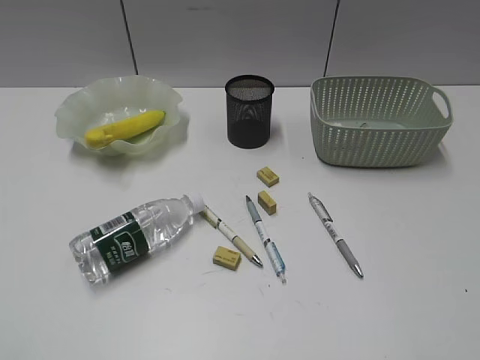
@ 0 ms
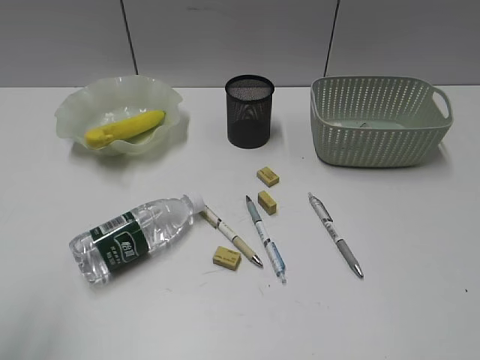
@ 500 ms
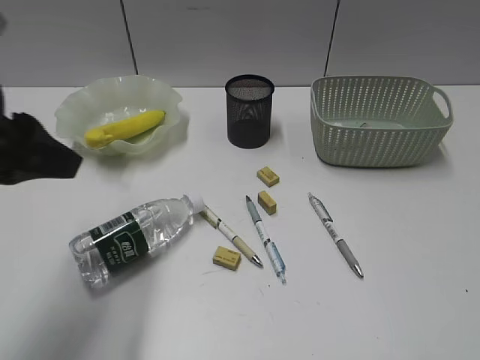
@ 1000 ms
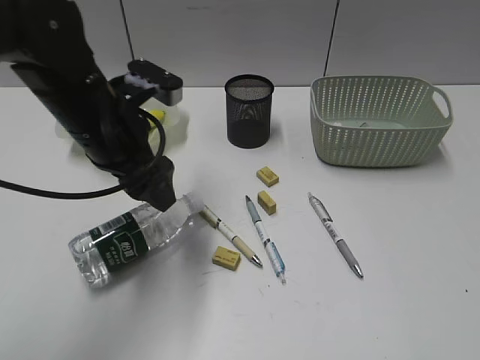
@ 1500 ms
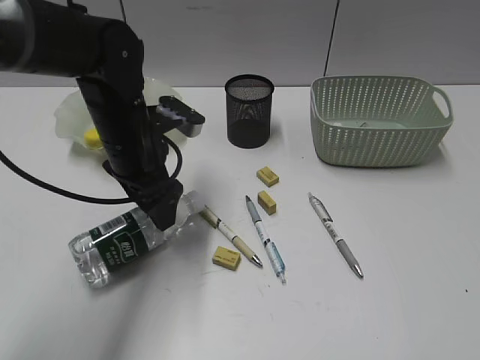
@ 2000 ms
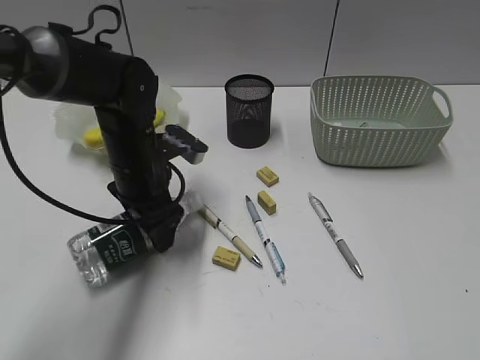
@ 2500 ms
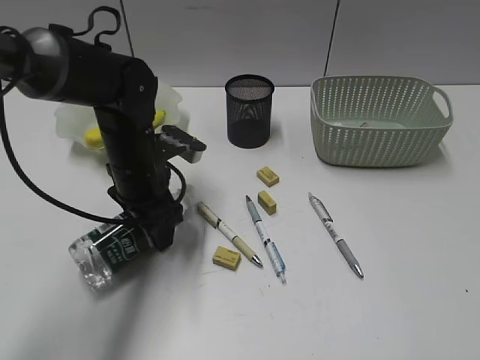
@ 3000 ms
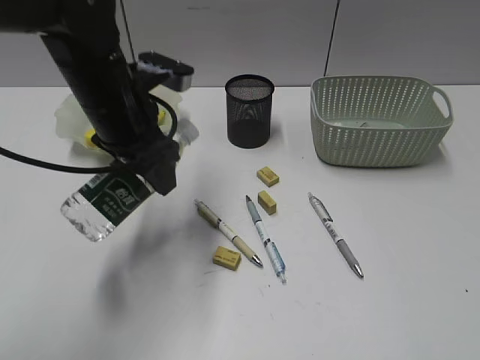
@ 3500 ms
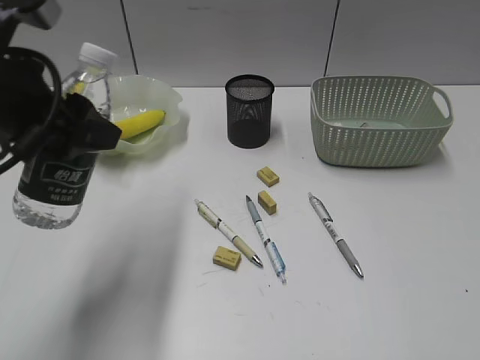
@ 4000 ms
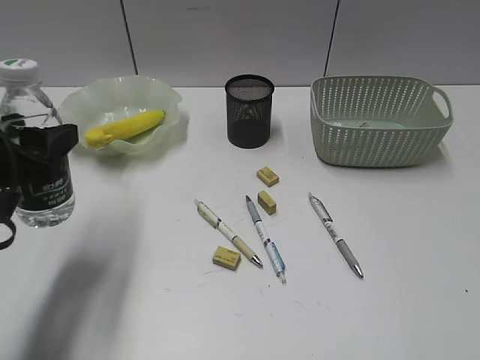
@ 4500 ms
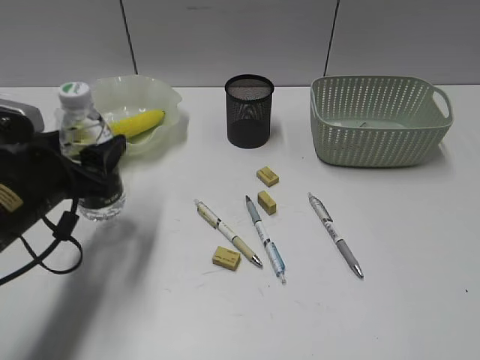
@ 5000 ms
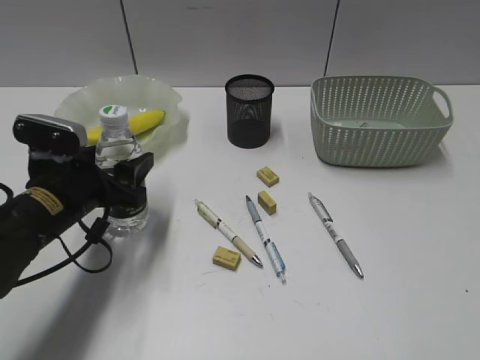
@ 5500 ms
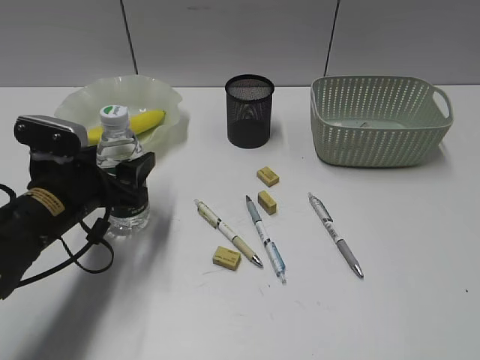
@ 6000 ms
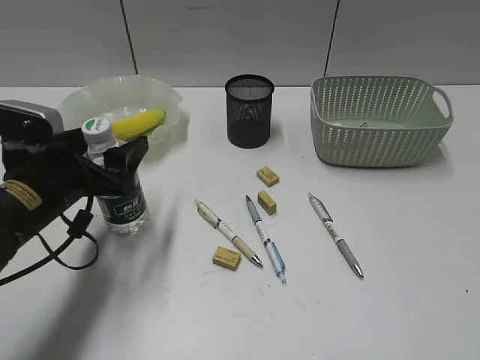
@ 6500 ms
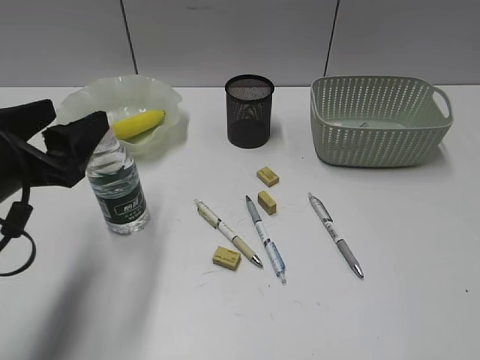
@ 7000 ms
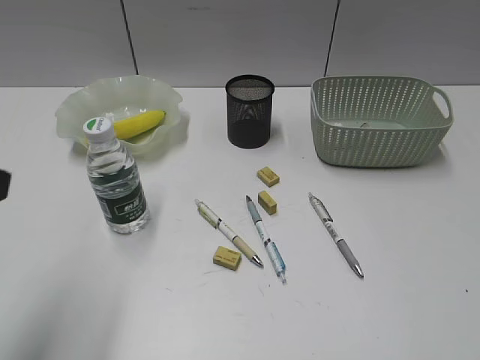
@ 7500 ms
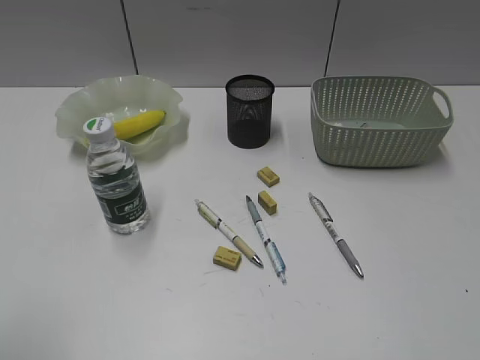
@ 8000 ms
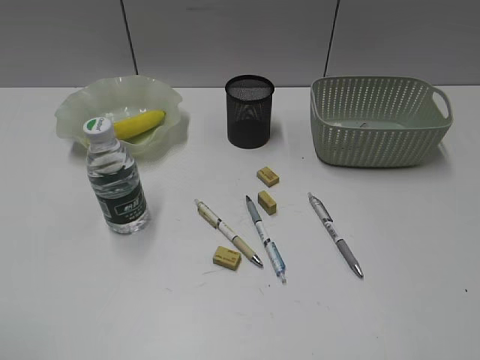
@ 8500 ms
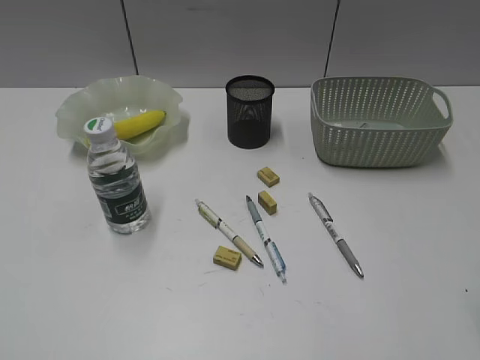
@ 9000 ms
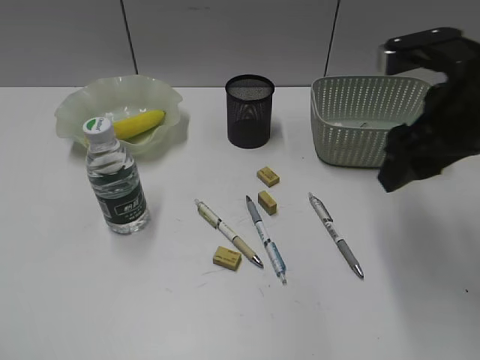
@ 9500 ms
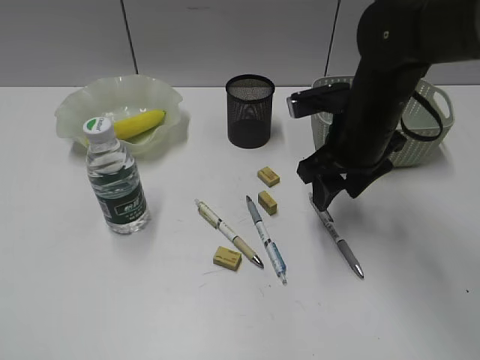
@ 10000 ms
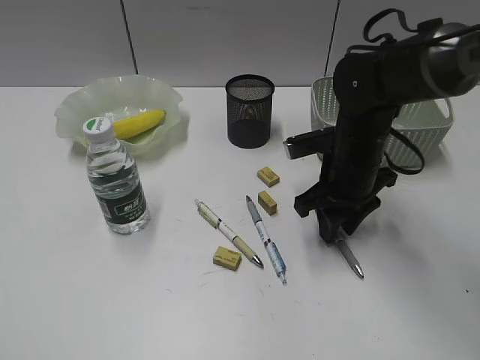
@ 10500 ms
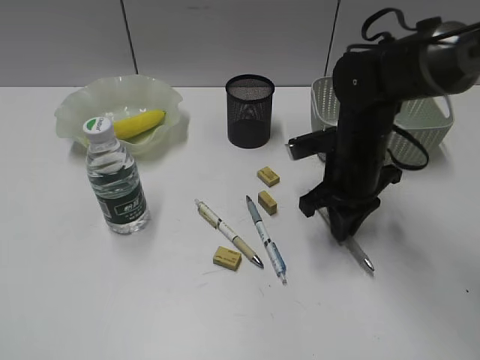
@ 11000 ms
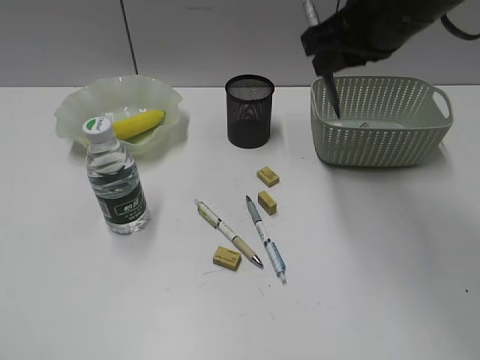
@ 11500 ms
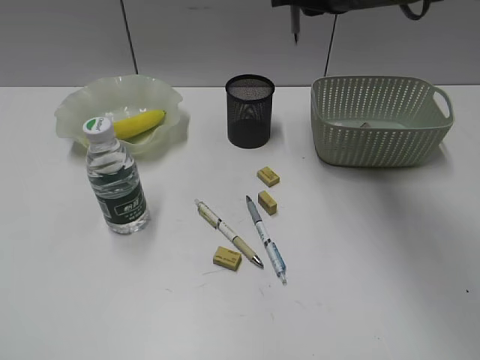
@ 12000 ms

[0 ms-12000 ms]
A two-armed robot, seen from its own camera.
Step, 0 ms to 2500 ms: Grasp the bottle with left gripper.
Step, 3000 ms to 6500 ms: Stand the bottle with left gripper.
Step, 7000 ms to 10500 ms: Grasp the gray pen with right gripper.
0 ms to 2000 ms: The left gripper moves forward and to the right, some 40 cm, and opens up.
2000 ms to 4000 ms: The left gripper is displaced upward, backward and to the left by some 15 cm.
4000 ms to 6000 ms: The left gripper heads downward, covering about 15 cm.
6000 ms to 8000 ms: The left gripper goes approximately 30 cm backward, upward and to the left.
8000 ms to 10000 ms: The left gripper shifts approximately 5 cm backward. Meanwhile the right gripper travels forward and to the left by about 40 cm.
10000 ms to 12000 ms: The right gripper moves upward, roughly 15 cm, and closes up.

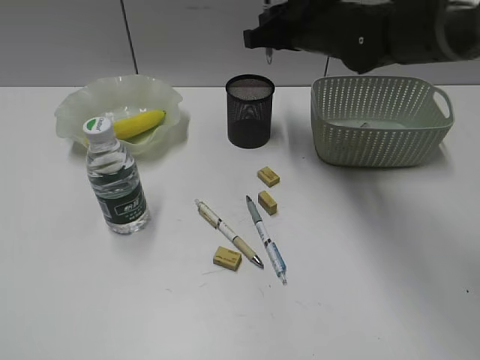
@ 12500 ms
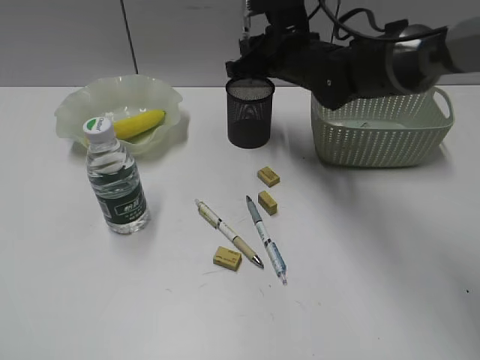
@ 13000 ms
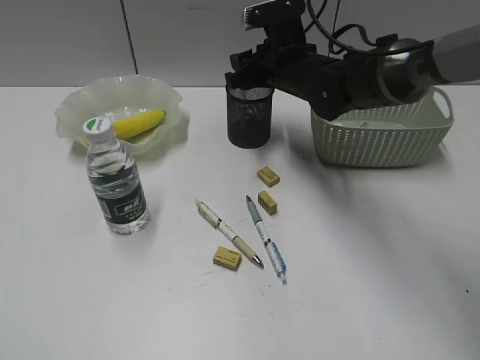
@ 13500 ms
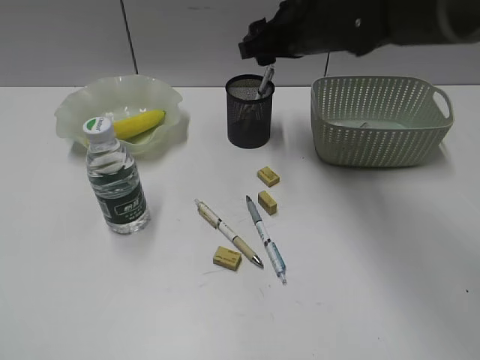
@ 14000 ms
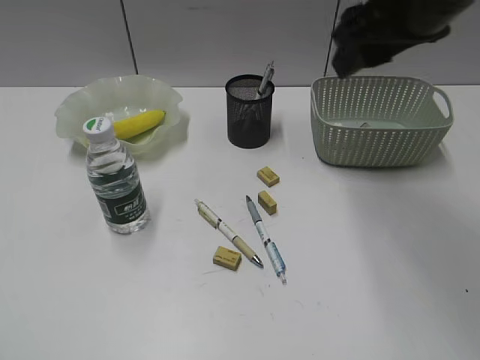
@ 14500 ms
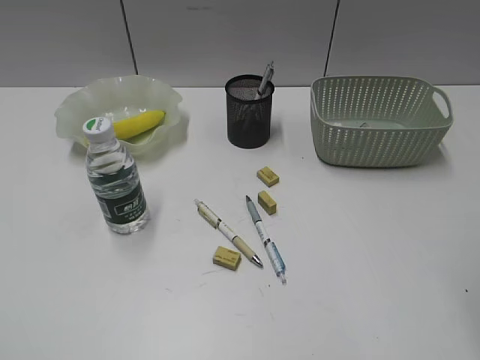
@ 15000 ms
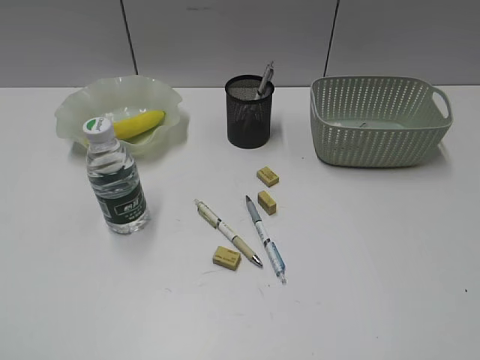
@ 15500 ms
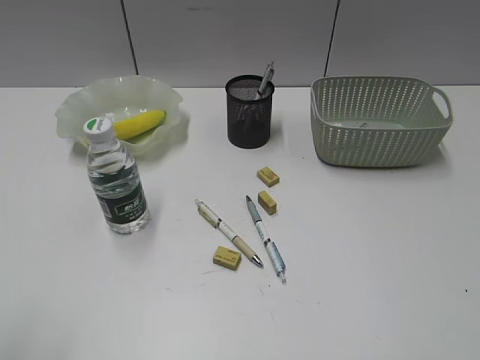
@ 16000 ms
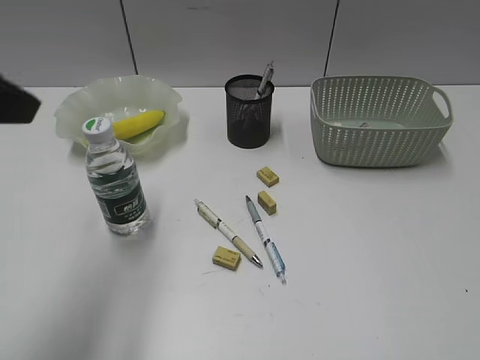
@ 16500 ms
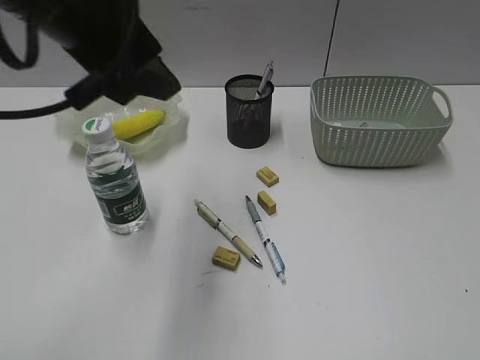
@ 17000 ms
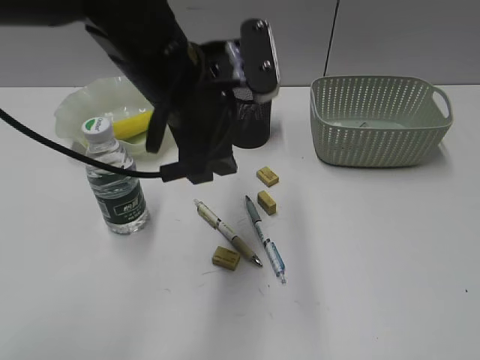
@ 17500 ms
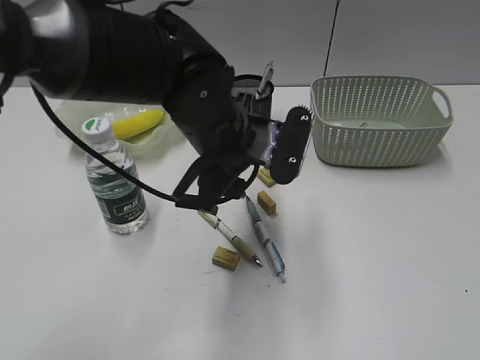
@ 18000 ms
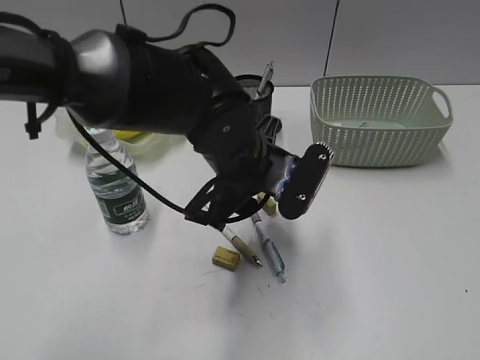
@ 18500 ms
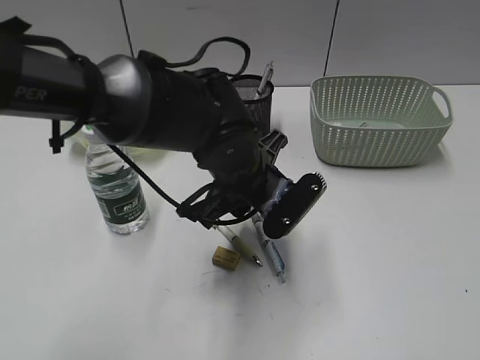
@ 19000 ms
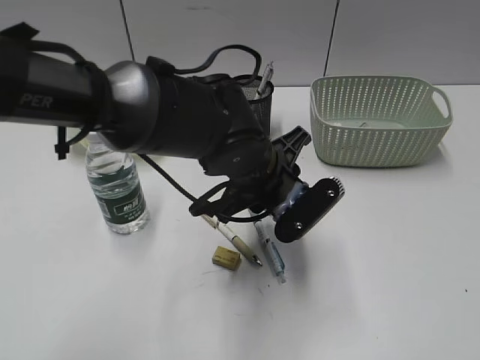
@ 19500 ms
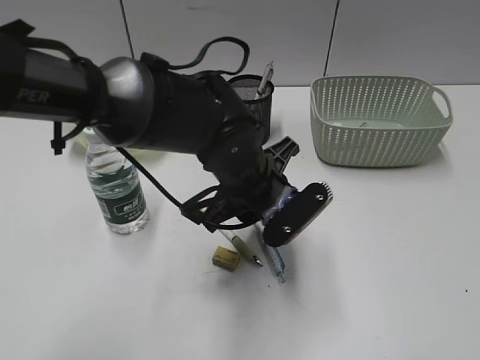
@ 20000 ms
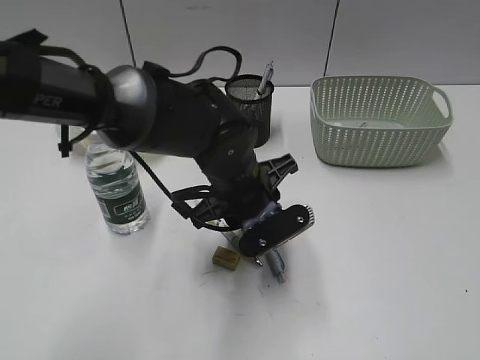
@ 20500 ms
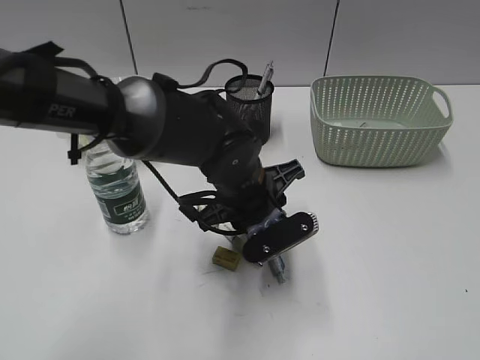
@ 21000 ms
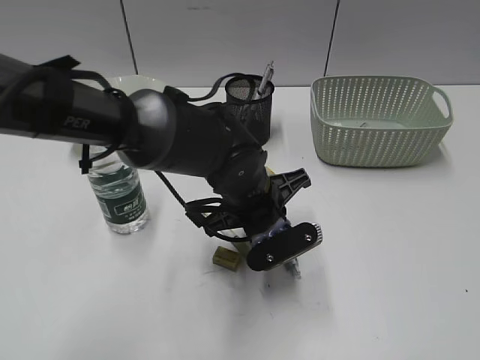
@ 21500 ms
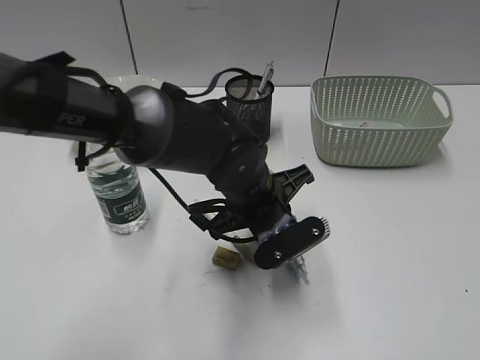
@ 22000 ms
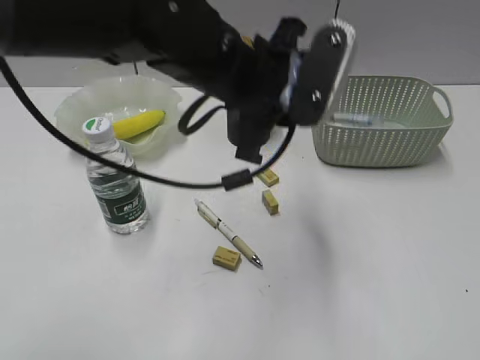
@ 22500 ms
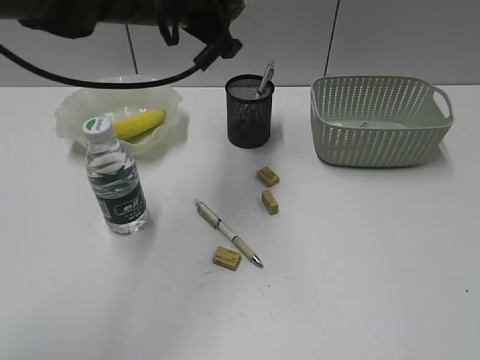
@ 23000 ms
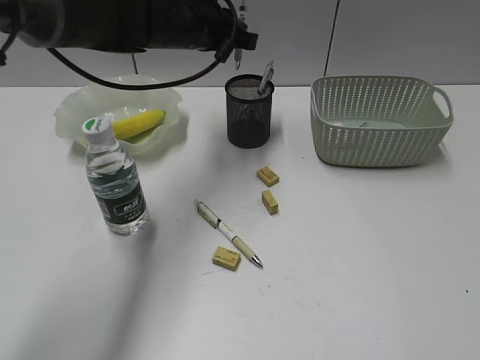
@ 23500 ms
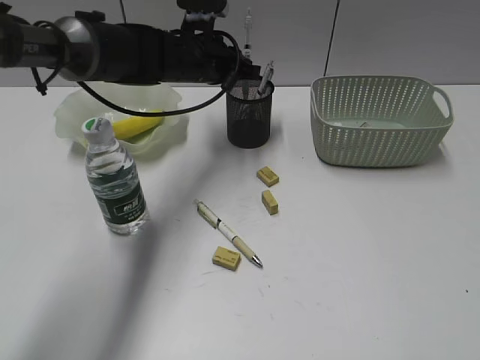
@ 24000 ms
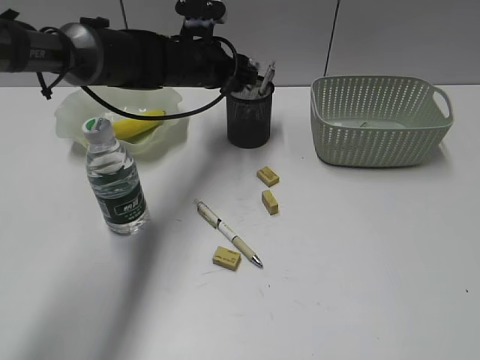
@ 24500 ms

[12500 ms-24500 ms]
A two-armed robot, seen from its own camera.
Step, 14000 ms to 21500 ms: Grasp the blue pen with left gripper.
12500 ms to 14500 ms: The right gripper shifts some 15 cm backward and upward, and opens its fingers.
14500 ms to 16500 ms: The left gripper is displaced forward and to the right by approximately 20 cm. The right gripper moves backward and to the right, about 35 cm.
16500 ms to 18500 ms: The left gripper goes roughly 30 cm to the right, downward and forward.
20500 ms to 22500 ms: The left gripper goes approximately 10 cm upward, and closes.
22500 ms to 24500 ms: The left gripper moves forward and downward, about 20 cm, and opens up.

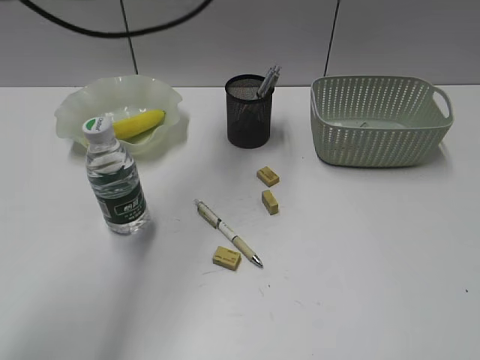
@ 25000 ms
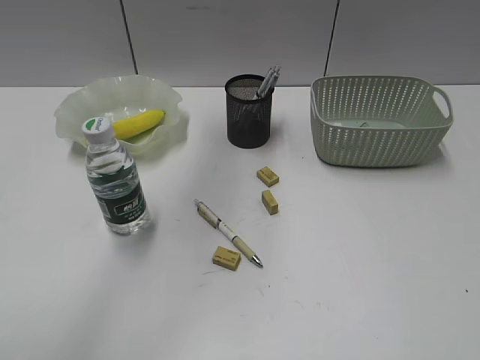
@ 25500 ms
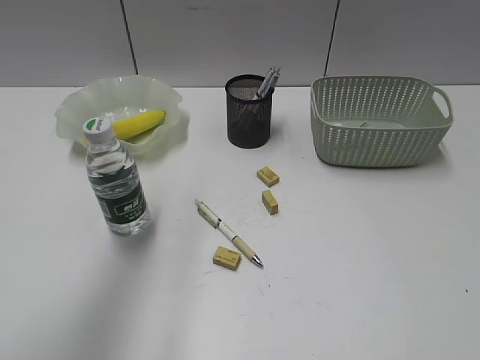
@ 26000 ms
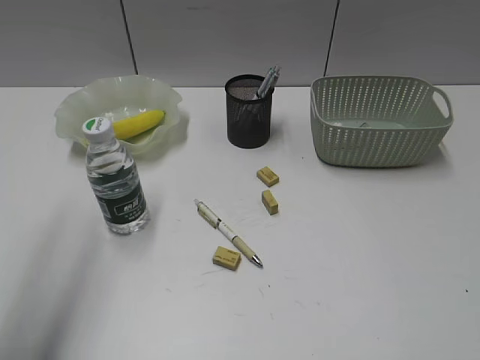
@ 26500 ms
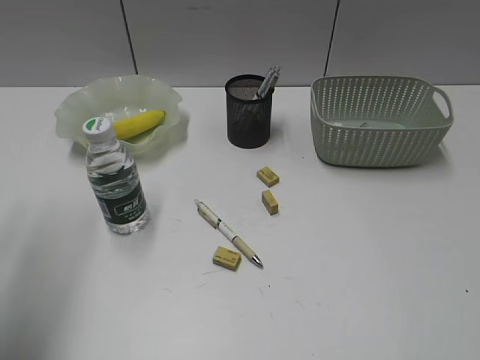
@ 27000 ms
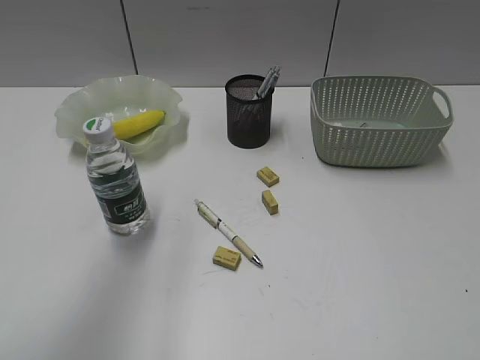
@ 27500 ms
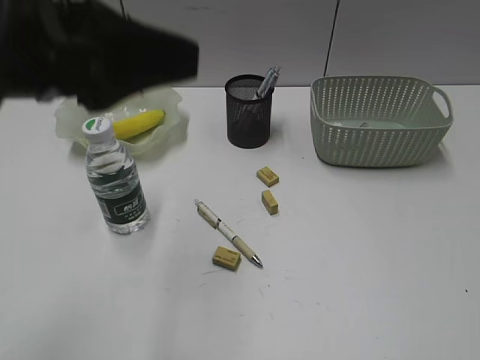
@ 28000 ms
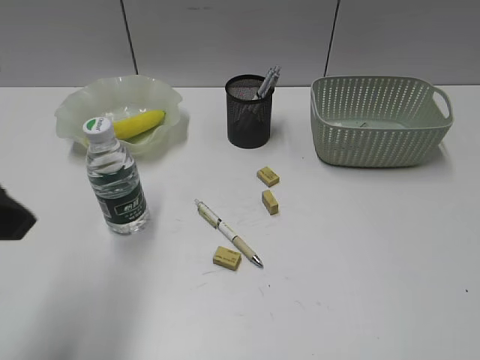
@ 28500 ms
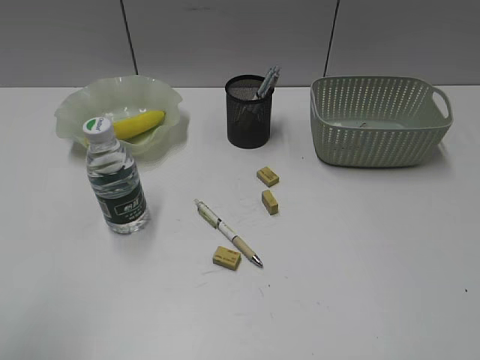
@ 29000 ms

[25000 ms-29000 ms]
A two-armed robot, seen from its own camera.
25000 ms to 27000 ms: The left gripper moves backward and to the left, some 35 cm.
27000 ms to 29000 ms: The left gripper shifts some 10 cm backward, and moves about 15 cm to the right and comes back.
